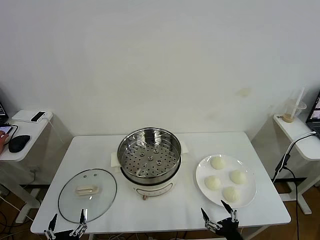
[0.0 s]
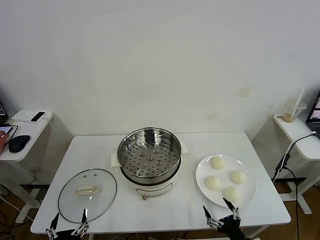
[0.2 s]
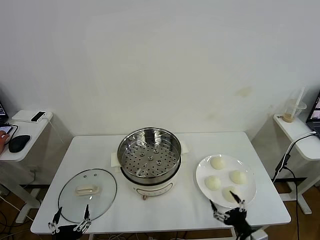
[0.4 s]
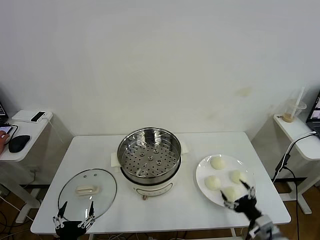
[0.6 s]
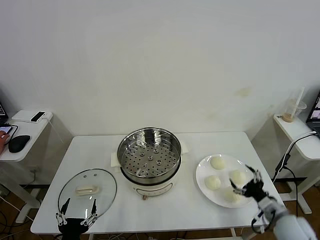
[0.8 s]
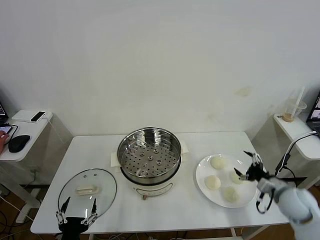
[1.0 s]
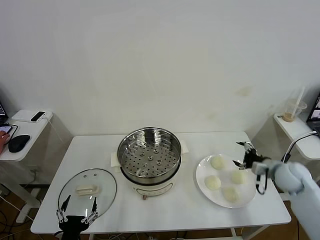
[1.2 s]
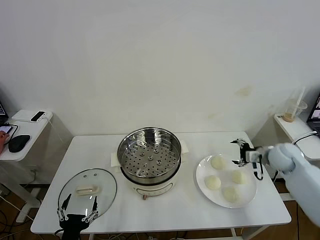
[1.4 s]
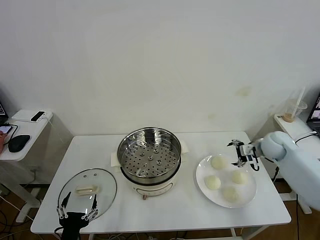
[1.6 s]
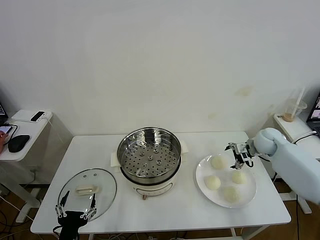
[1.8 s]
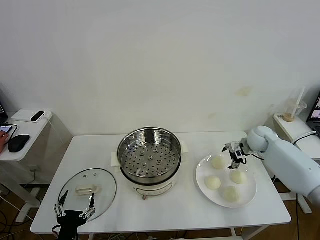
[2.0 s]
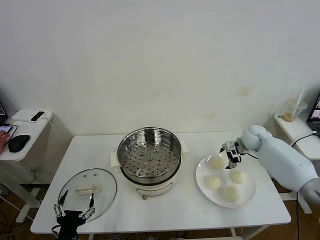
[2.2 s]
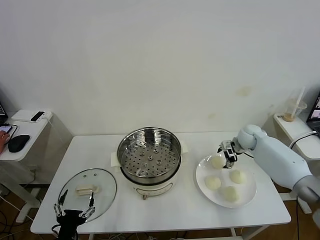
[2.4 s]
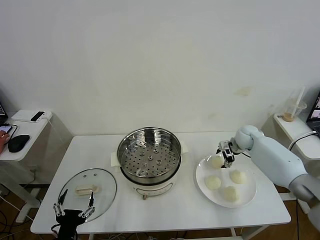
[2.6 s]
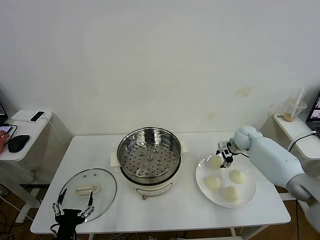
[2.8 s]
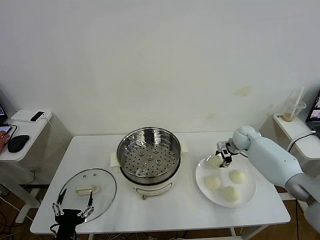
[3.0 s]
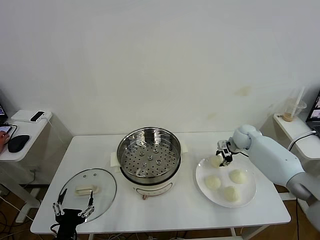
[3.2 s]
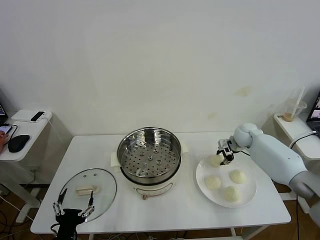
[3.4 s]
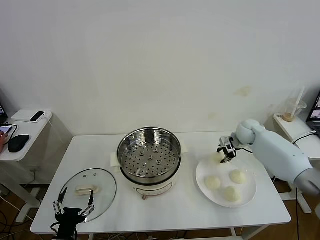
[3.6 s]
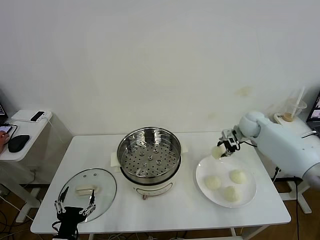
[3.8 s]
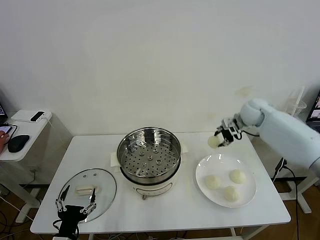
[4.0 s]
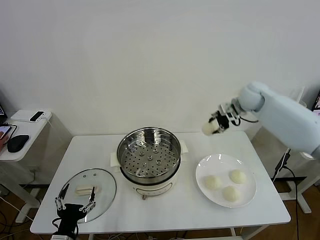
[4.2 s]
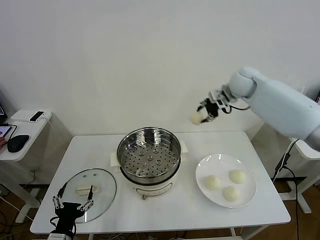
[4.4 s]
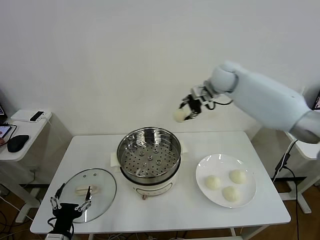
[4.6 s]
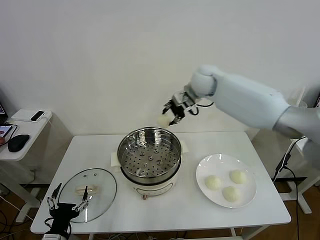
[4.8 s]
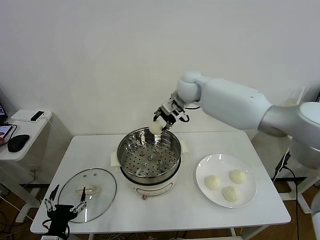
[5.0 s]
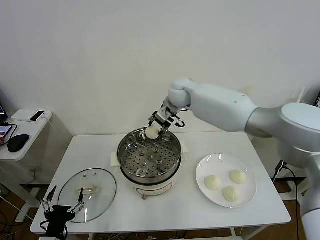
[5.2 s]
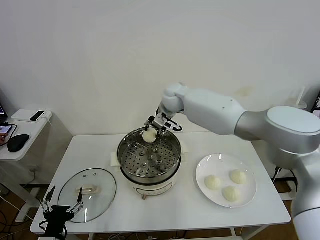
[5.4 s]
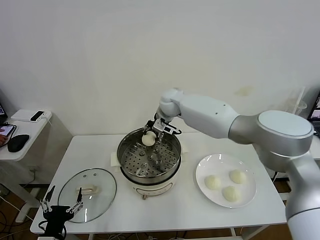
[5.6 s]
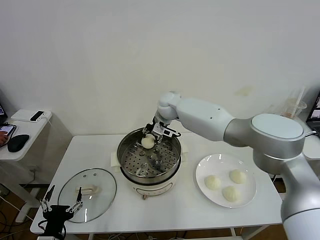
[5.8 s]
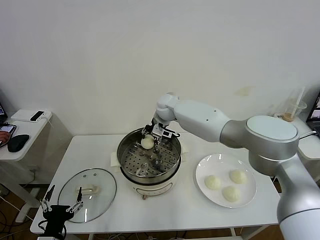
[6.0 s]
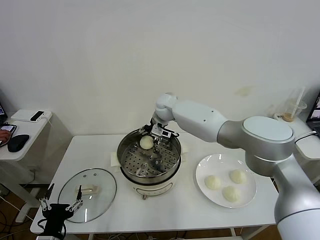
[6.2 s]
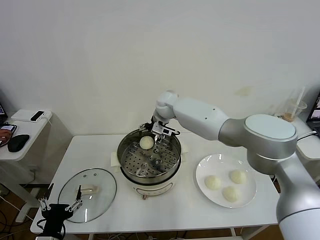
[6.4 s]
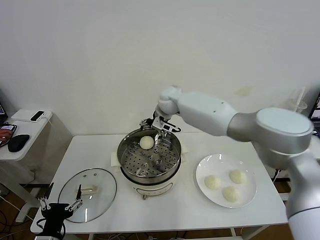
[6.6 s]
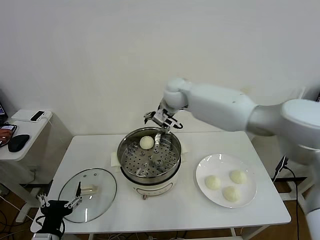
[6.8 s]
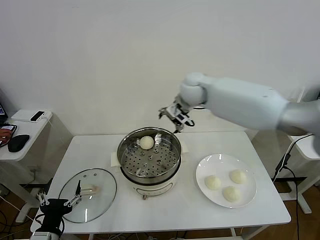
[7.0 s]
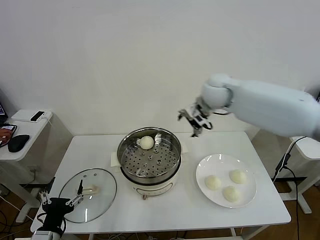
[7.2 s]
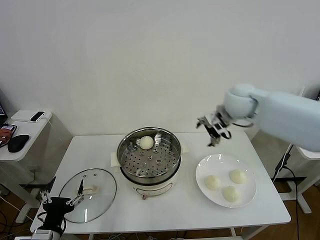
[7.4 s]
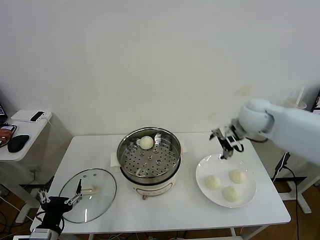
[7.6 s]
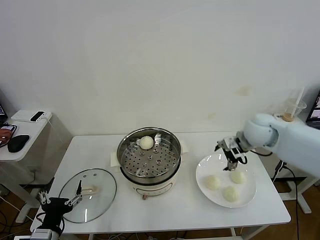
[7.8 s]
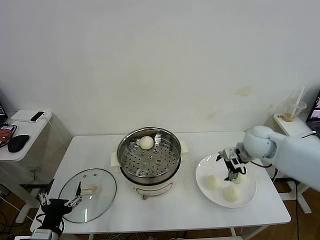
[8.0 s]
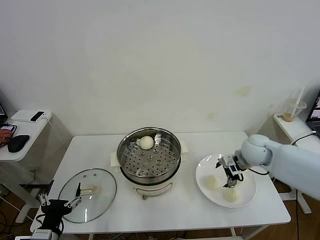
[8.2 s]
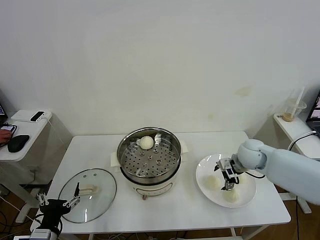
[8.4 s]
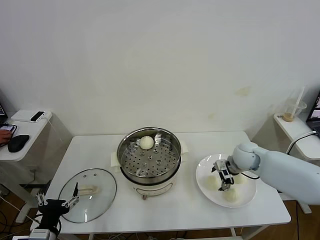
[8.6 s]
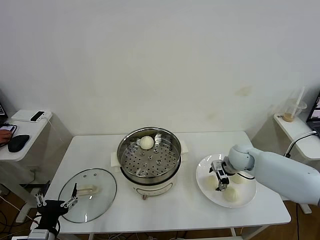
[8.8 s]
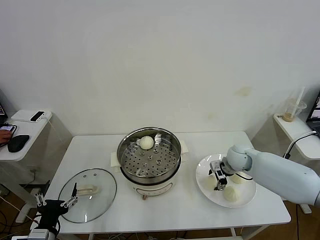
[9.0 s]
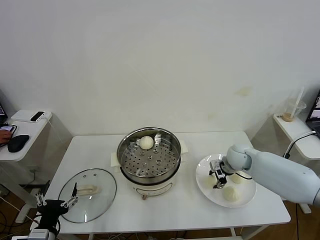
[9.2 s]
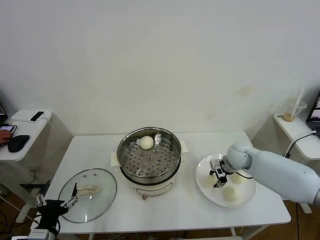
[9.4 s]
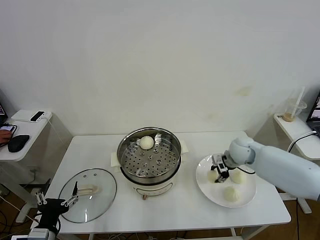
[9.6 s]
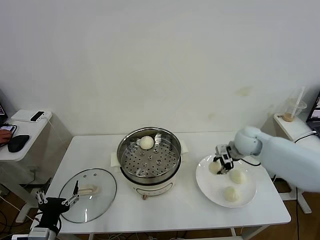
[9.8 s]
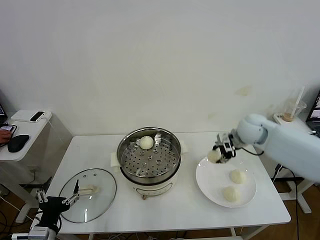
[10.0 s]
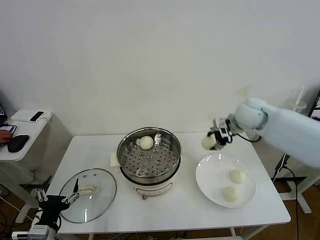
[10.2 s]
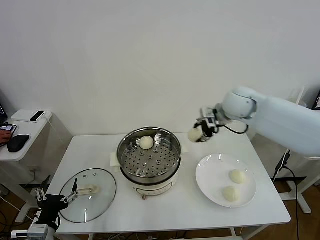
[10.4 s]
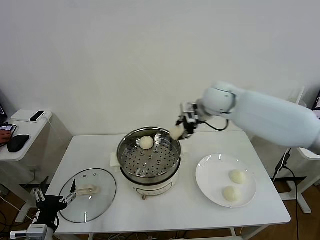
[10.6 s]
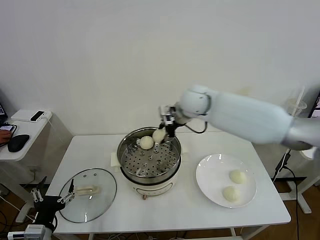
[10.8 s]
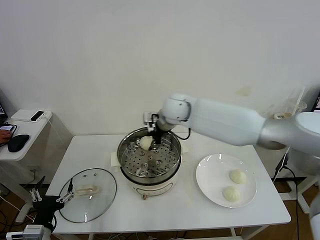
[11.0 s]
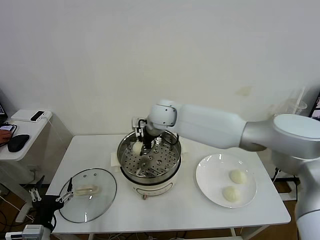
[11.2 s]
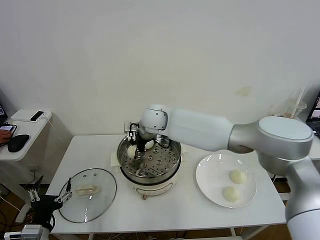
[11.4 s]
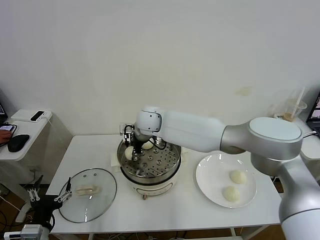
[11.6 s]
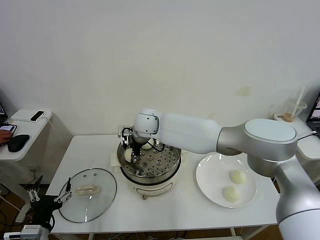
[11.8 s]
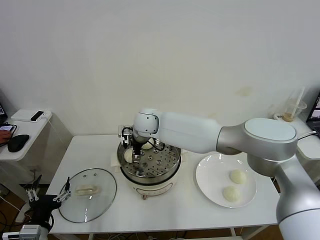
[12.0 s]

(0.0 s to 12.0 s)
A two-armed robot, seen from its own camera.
Task of the whole recording: take steamed baozi put them in steamer then cover it.
Step, 0.0 s - 3.2 s: Grasp the baozi in the plate with right gripper.
Step, 3.4 s - 6.2 s: Place the baozi on the steamer with right gripper.
Step, 6.4 s - 9.2 s: Grasp the baozi in the plate with right gripper.
1.6 s - 3.0 s: The right gripper heads forward and to the left, covering roughly 10 cm, and closes.
3.0 s - 4.4 s: The right gripper shifts approximately 25 cm upward and to the left.
4.4 s - 6.0 s: The right gripper heads to the left and downward, covering roughly 25 cm.
6.0 s - 7.6 s: The right gripper goes approximately 30 cm to the right and backward, and opens.
7.6 s - 9.0 s: The right gripper moves downward, some 15 cm, and closes.
9.0 s - 10.4 s: The right gripper is displaced upward by some 20 cm.
10.4 s - 12.0 s: The right gripper goes roughly 25 cm to the left, and opens.

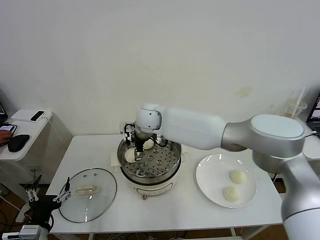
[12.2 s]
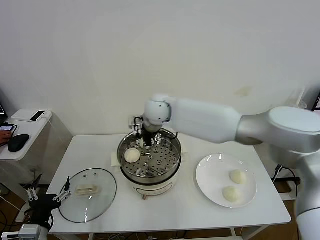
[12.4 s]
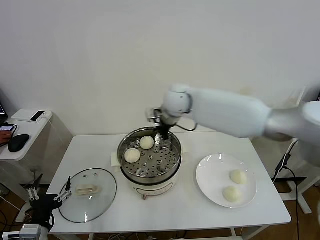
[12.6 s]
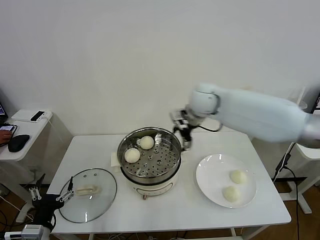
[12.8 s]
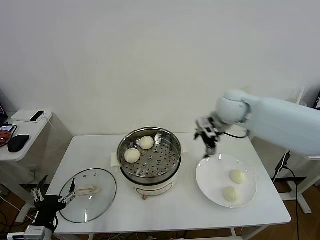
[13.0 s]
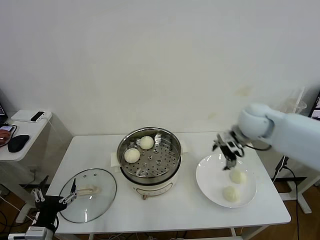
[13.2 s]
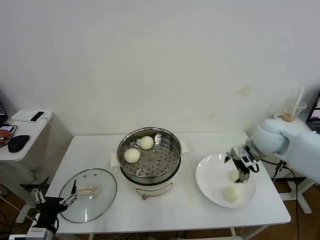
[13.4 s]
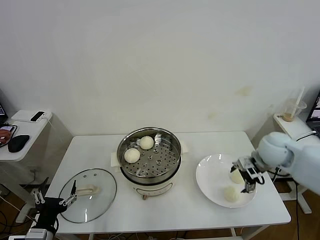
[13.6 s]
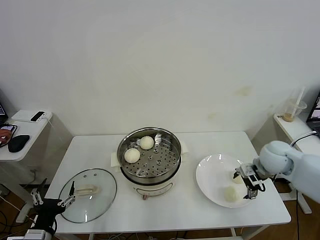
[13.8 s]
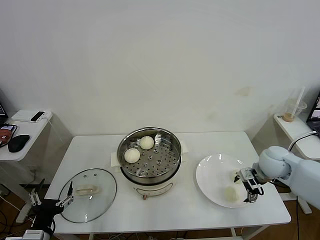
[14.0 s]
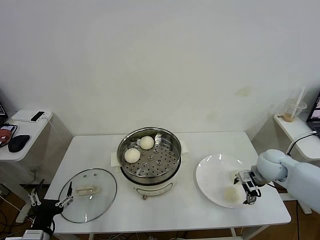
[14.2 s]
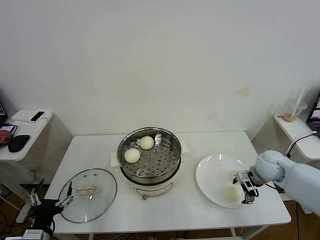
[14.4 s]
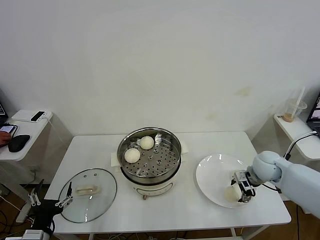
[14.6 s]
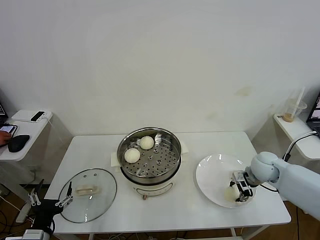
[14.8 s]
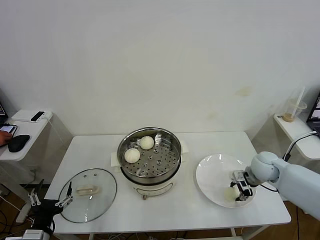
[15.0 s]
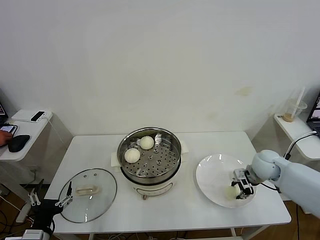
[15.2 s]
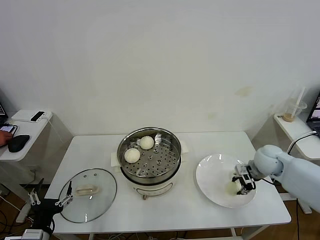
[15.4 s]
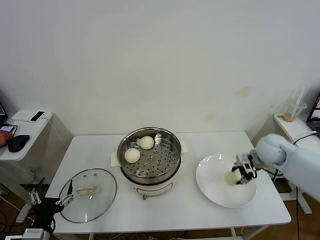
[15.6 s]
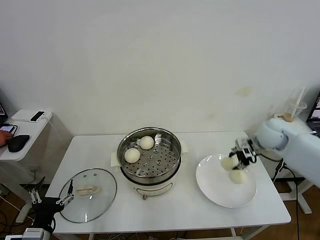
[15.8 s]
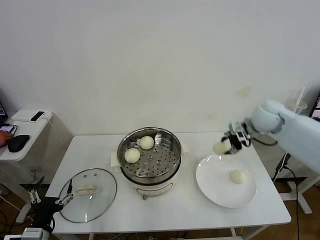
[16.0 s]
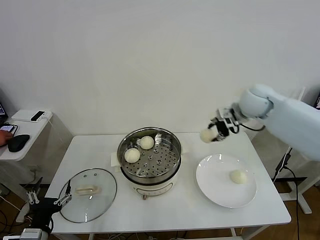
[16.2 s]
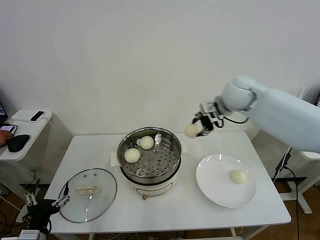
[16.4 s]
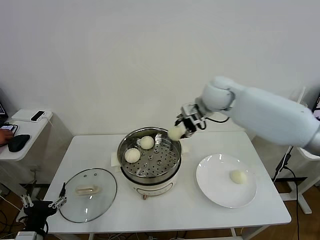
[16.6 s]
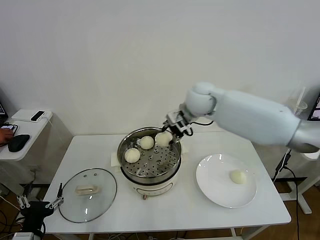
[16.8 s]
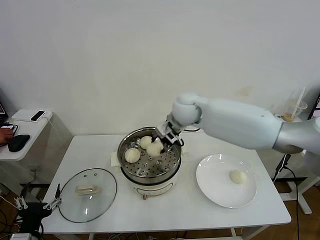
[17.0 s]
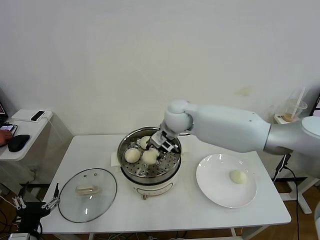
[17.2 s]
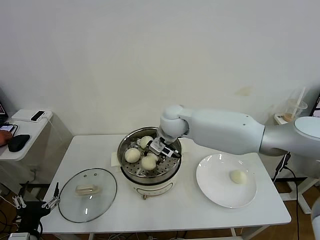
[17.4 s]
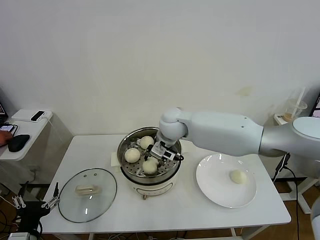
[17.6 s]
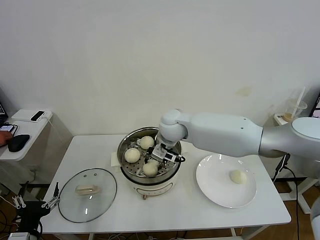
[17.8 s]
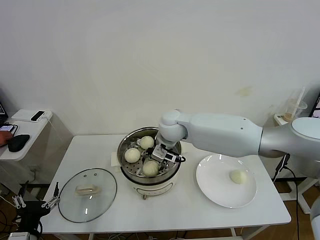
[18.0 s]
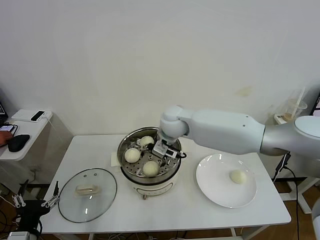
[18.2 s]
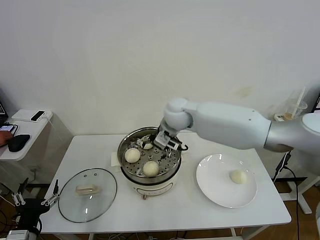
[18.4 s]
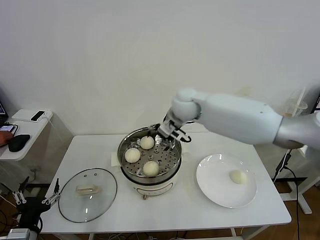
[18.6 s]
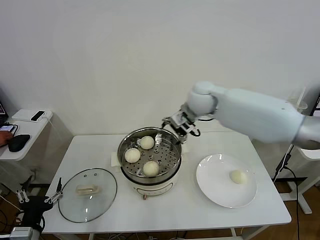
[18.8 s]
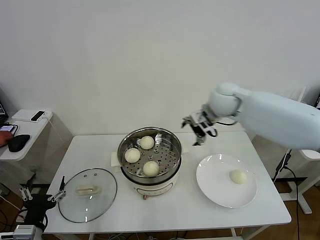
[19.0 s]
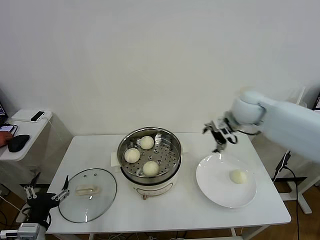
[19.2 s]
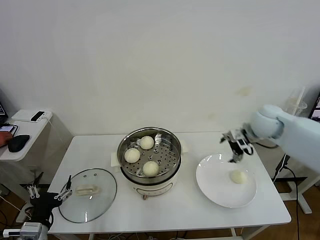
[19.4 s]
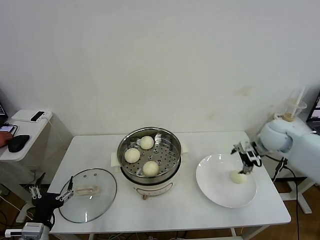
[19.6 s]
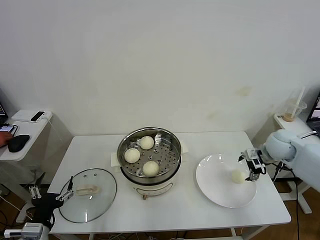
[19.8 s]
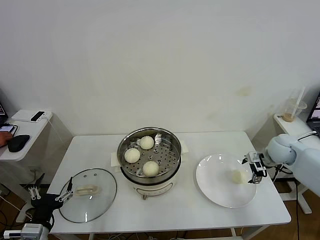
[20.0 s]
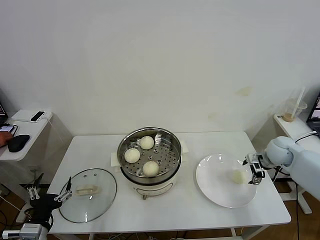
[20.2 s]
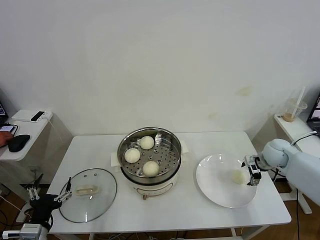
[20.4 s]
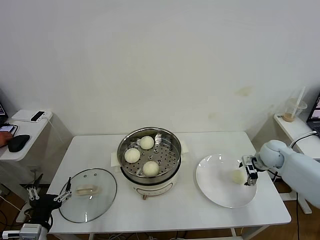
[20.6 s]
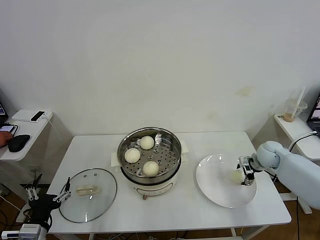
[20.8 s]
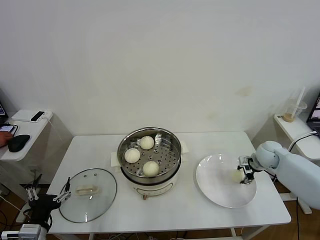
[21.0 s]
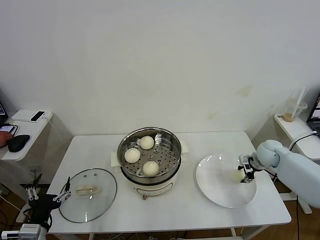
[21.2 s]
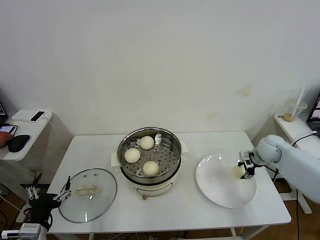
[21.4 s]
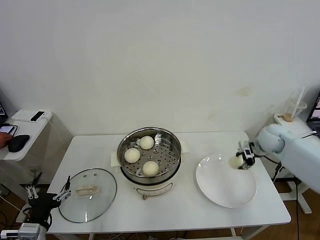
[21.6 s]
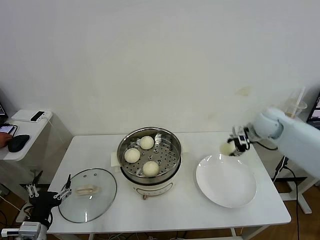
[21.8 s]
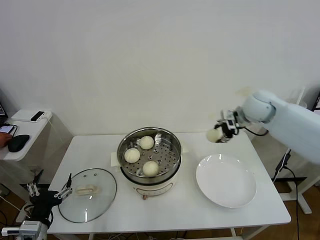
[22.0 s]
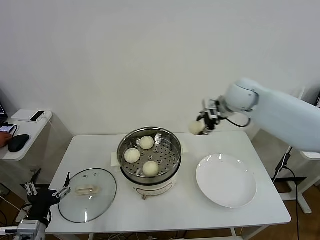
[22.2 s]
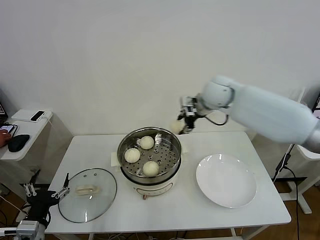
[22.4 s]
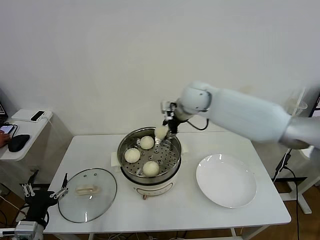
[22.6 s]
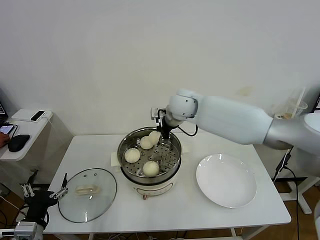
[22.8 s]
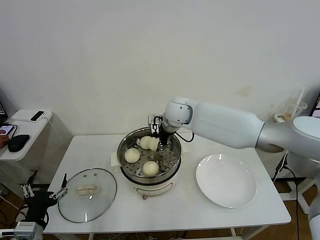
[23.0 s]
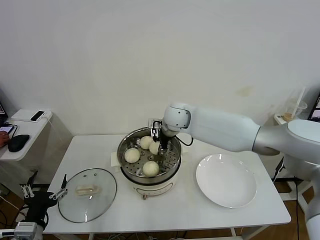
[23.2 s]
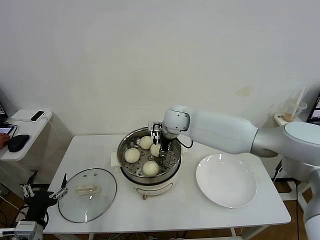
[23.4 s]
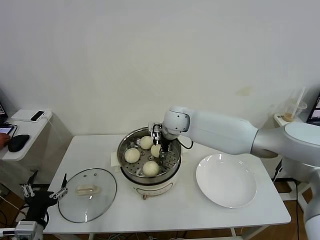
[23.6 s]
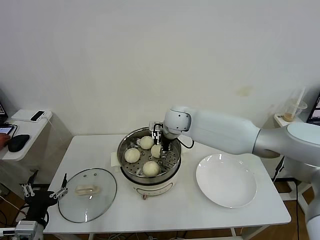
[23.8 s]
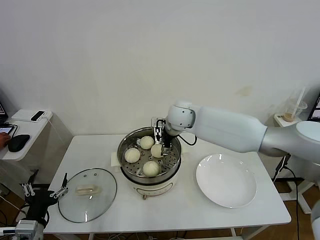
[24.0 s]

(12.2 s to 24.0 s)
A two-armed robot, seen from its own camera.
Task of the whole recording: take steamed baozi put them in steamer then cover it.
Step, 12.4 s - 15.0 s: Grasp the baozi in the plate with right gripper.
Step, 15.2 s - 18.0 s: Place the baozi on the steamer with right gripper.
Step, 18.4 s - 21.0 s: Grasp the baozi in the plate with right gripper.
Step, 21.2 s - 24.0 s: Place the baozi on the steamer with right gripper.
12.2 s - 13.6 s: The right gripper goes some 40 cm to the right.
13.6 s - 15.2 s: The right gripper moves downward, roughly 10 cm, and closes its fingers.
15.2 s - 16.6 s: The right gripper heads upward, to the left and forward, covering about 30 cm.
16.6 s - 18.2 s: The right gripper goes approximately 15 cm to the left and downward, and opens up.
18.2 s - 19.6 s: The right gripper heads to the right, covering roughly 35 cm.
19.6 s - 21.0 s: The right gripper goes approximately 10 cm downward, and closes up.
21.0 s - 22.6 s: The right gripper goes some 35 cm to the left and upward.
22.6 s - 24.0 s: The right gripper is displaced downward by roughly 5 cm, and opens up.
